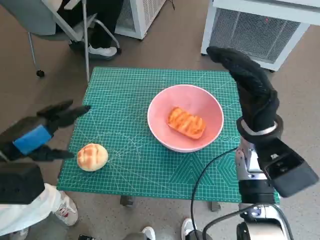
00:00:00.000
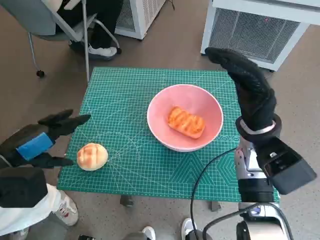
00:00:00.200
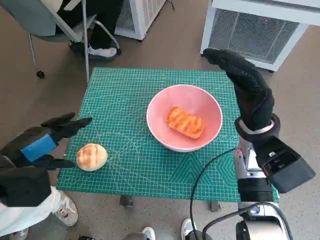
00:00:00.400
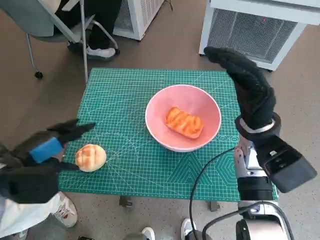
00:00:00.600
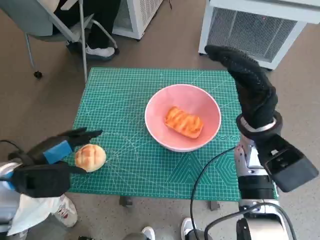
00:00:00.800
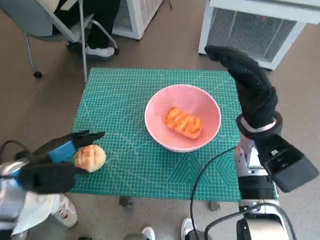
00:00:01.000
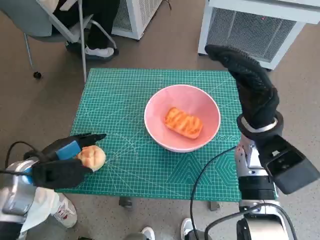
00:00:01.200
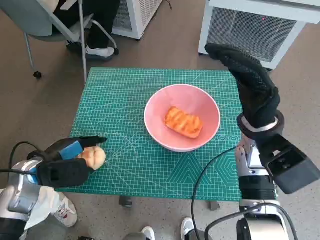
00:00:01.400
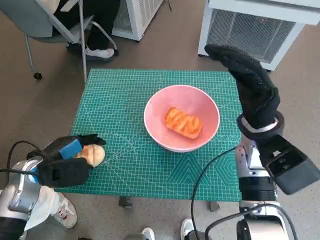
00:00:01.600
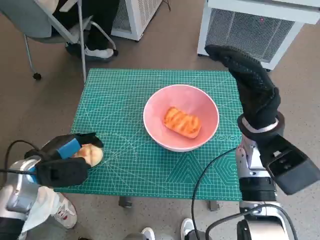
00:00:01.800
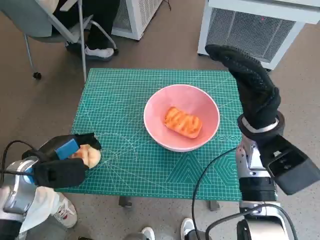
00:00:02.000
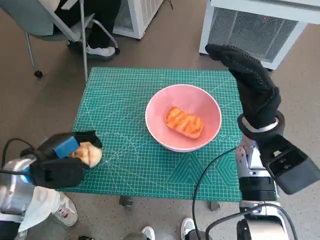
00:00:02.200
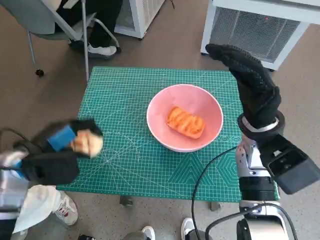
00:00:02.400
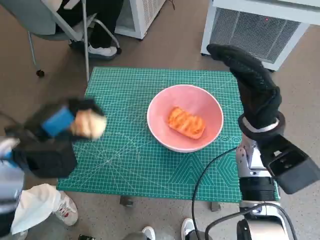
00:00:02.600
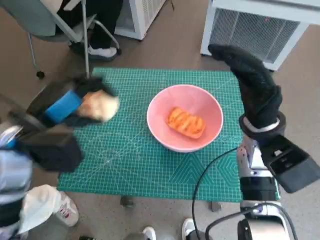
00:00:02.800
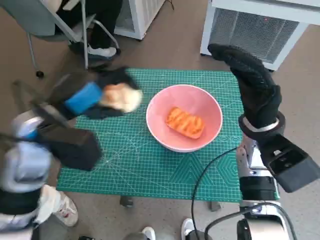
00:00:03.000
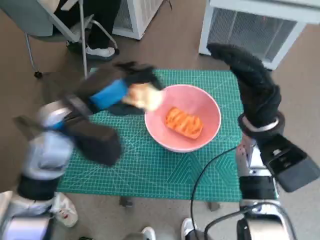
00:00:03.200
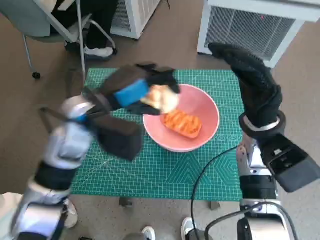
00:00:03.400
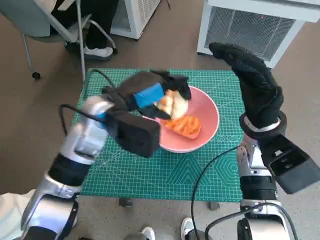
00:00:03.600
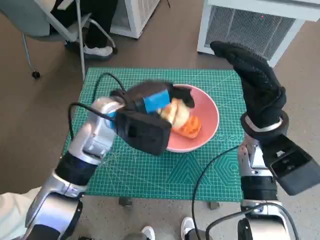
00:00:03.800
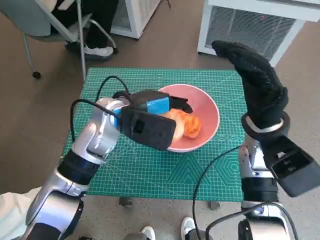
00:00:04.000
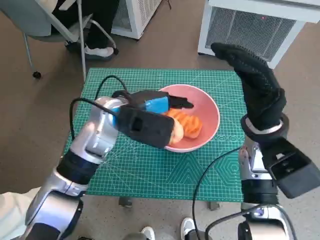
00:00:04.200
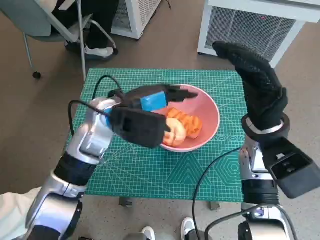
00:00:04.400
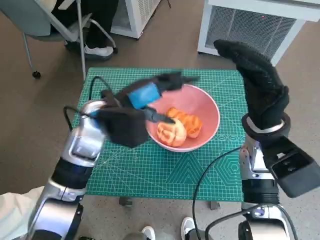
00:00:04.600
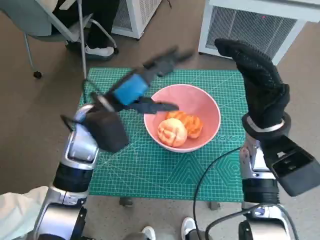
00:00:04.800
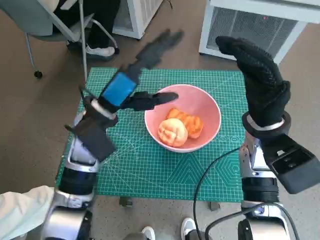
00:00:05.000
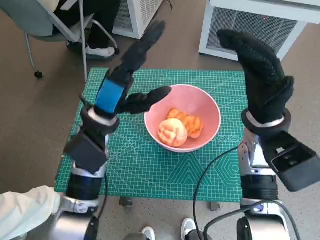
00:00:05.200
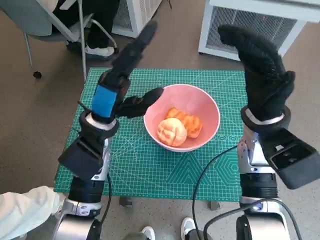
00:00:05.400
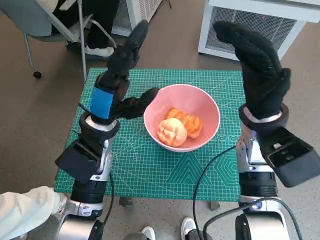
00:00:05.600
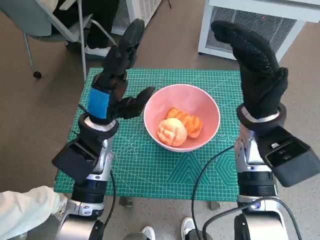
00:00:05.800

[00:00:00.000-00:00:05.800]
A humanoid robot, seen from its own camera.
Task of the whole recording: Push the bowl to the center of the table and put the bread into the bowl.
Step, 00:00:00.000 to 00:00:01.600: Grasp the round bread with left hand.
Step, 00:00:01.800 to 00:00:04.400: Place the round bread in pink bowl with left hand.
00:00:00.000 to 00:00:01.400: The left hand goes some 10 cm downward.
00:00:01.400 to 00:00:02.800: The left hand shifts some 10 cm upward.
00:00:02.800 to 00:00:04.400: The left hand shifts about 15 cm to the right and forward.
00:00:04.400 to 00:00:05.800: The left hand moves about 5 cm.

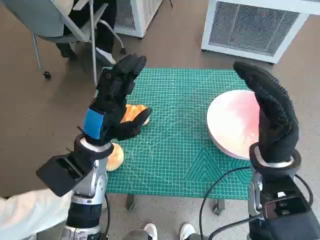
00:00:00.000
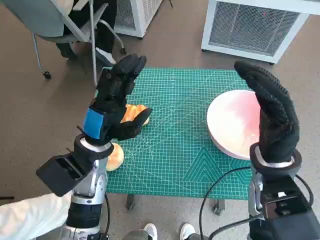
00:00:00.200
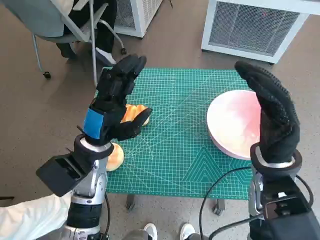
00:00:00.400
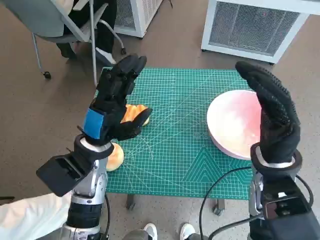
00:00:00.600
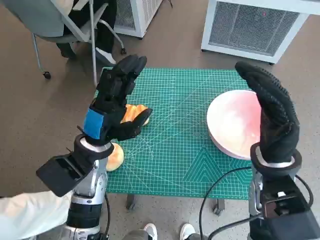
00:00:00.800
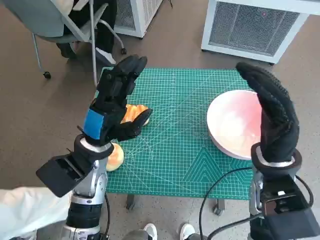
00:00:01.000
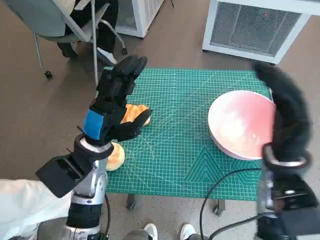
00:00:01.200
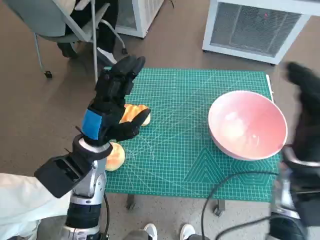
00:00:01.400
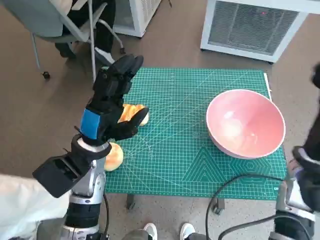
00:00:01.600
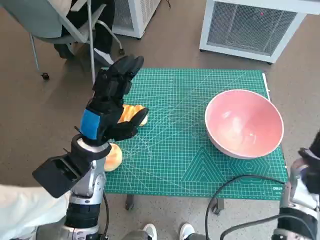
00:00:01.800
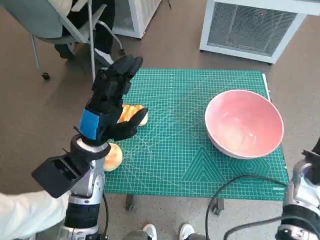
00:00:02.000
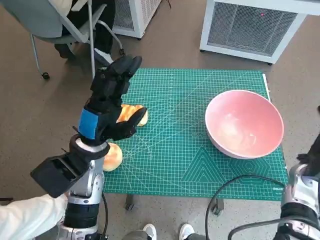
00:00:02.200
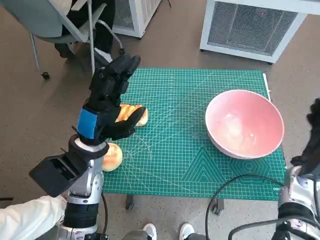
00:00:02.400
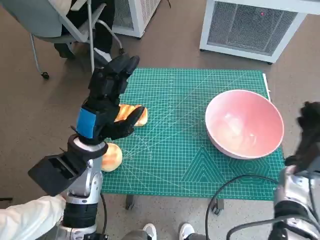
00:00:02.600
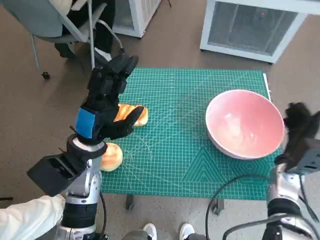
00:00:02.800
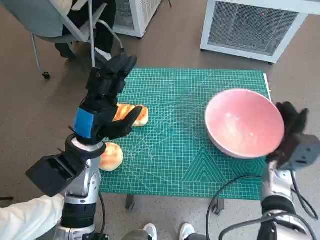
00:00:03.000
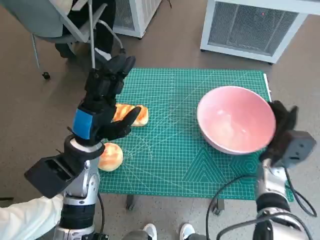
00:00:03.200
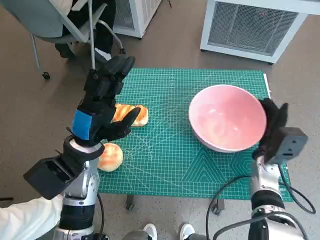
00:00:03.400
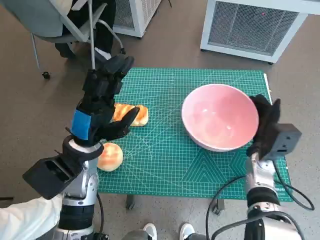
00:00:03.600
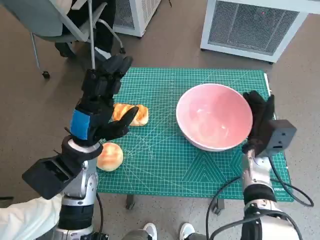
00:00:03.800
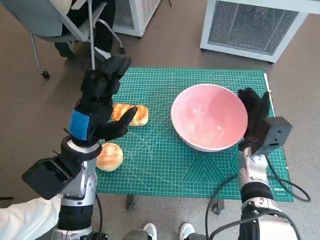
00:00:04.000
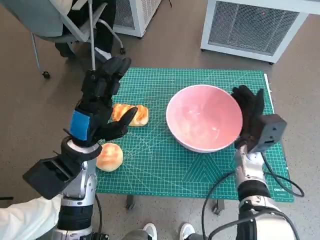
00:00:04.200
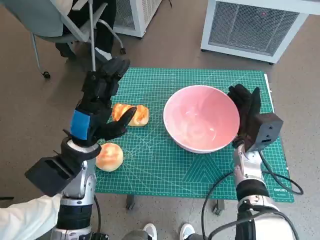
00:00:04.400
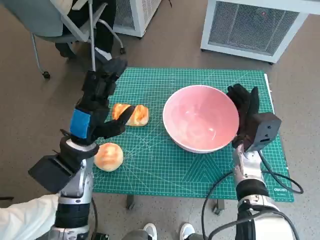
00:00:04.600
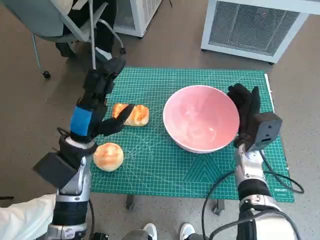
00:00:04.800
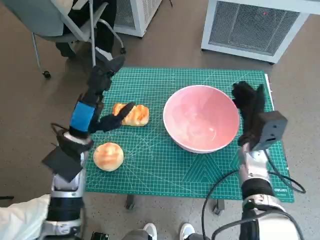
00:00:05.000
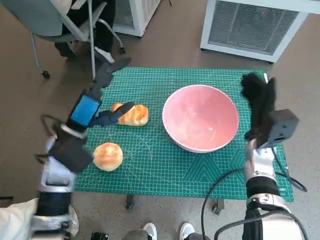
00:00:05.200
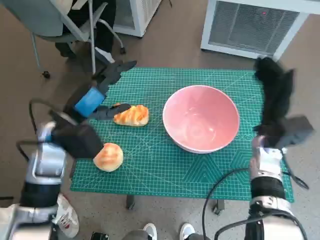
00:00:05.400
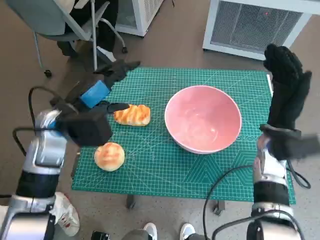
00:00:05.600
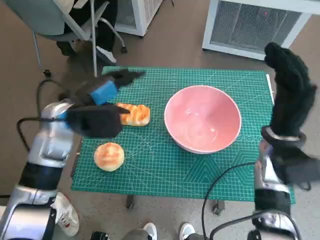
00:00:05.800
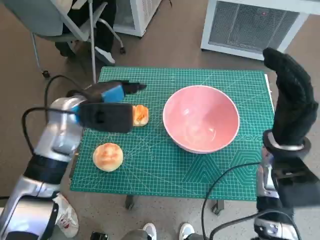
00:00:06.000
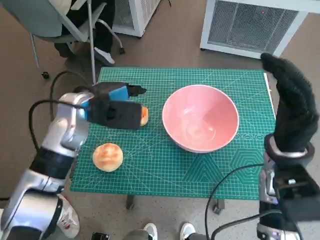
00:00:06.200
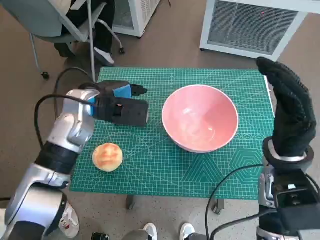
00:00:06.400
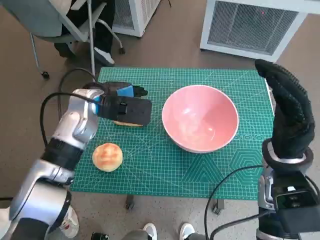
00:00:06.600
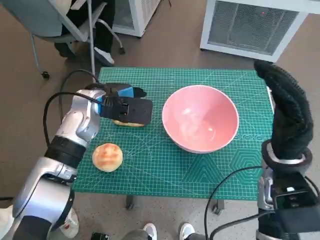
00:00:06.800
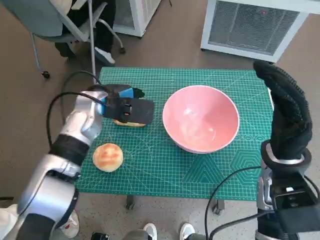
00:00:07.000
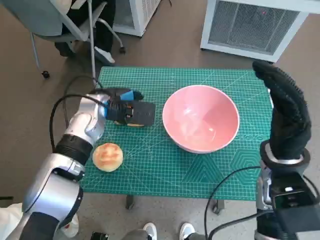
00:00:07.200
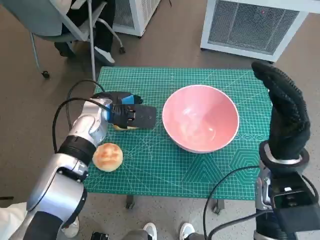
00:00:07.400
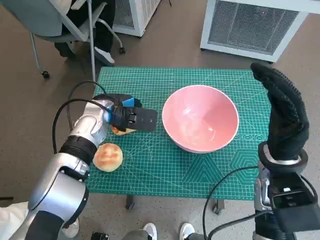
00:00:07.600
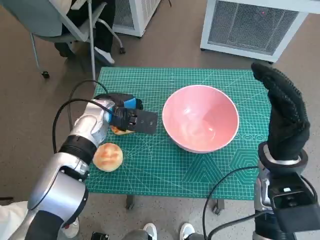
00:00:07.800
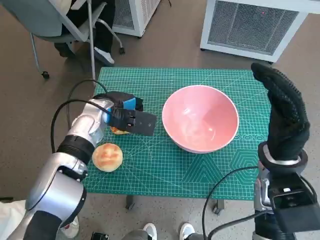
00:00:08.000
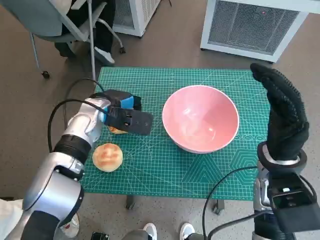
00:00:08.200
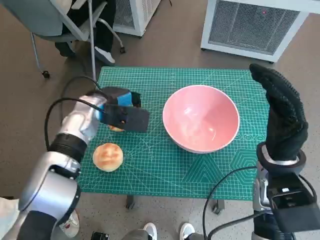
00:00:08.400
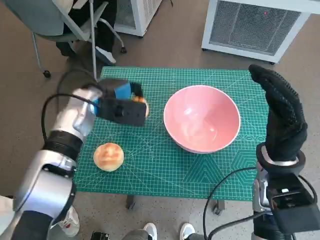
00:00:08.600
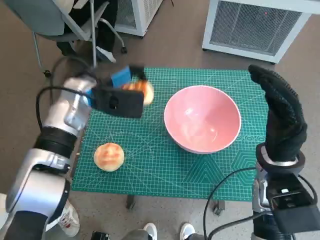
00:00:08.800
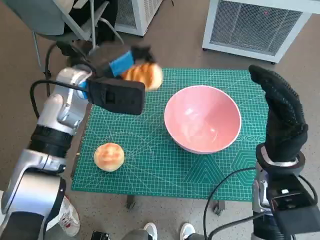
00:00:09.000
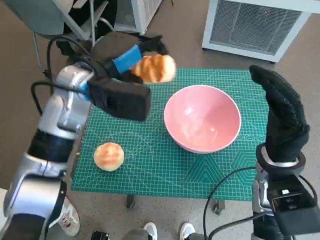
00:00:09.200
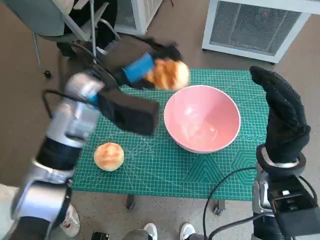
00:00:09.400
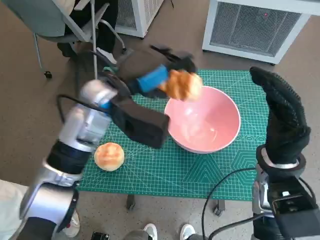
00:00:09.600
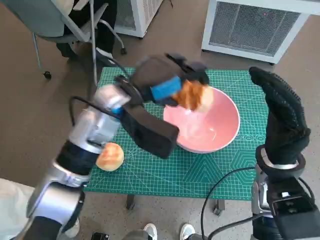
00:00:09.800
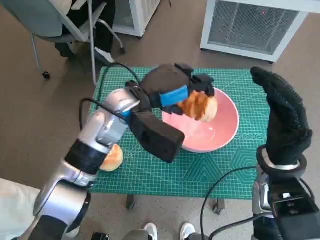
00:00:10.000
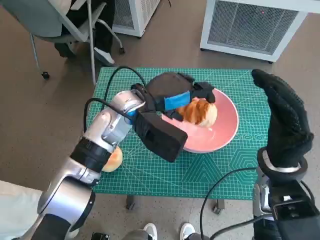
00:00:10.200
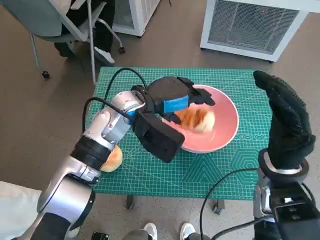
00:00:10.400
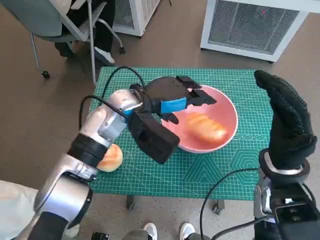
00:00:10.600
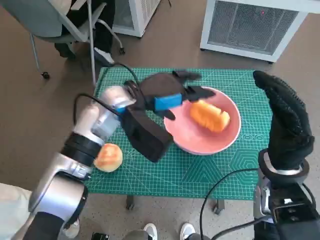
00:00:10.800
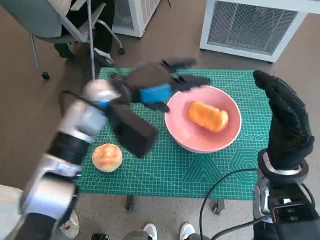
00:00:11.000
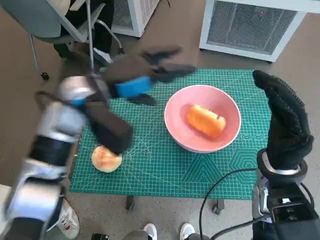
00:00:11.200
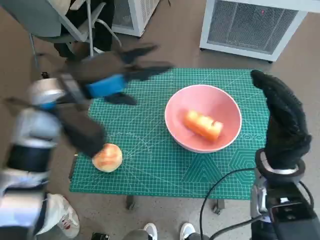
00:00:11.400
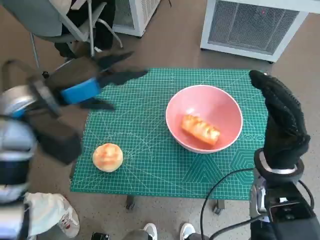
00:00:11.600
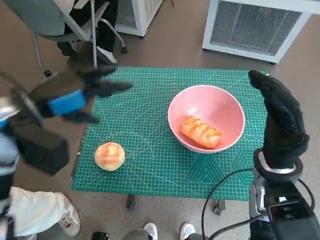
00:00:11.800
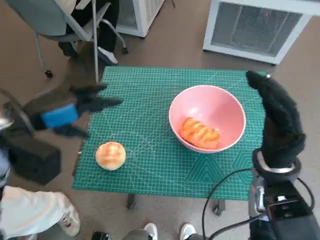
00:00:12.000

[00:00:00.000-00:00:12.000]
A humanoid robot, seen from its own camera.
Task of the whole recording: Push the bowl to the center of the table and put the bread into the bowl.
Step, 00:00:00.000 to 00:00:05.200: Move the pink bowl to the center of table with right hand.
Step, 00:00:05.400 to 00:00:07.800: Grasp the long bread with left hand.
Step, 00:00:08.000 to 00:00:10.600: Place the long bread in pink bowl with left hand.
00:00:01.600 to 00:00:03.000: The right hand heads downward, covering approximately 10 cm.
00:00:03.000 to 00:00:04.400: The right hand goes some 5 cm to the left.
00:00:04.400 to 00:00:06.000: The left hand shifts about 10 cm forward and upward; the right hand travels upward by roughly 10 cm.
00:00:06.000 to 00:00:07.600: The left hand heads downward, covering some 5 cm.
00:00:07.600 to 00:00:09.000: The left hand moves upward, about 10 cm.
00:00:09.000 to 00:00:10.400: The left hand heads to the right, covering about 10 cm.
00:00:10.400 to 00:00:12.000: The left hand heads to the left and backward, covering some 20 cm.

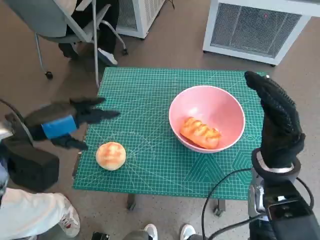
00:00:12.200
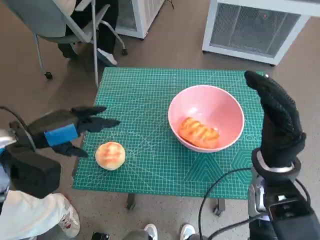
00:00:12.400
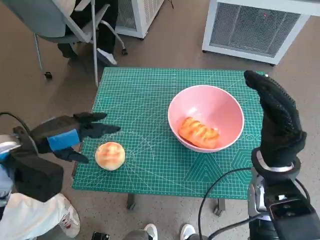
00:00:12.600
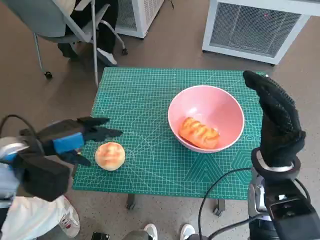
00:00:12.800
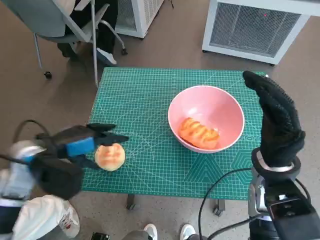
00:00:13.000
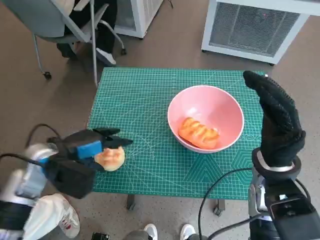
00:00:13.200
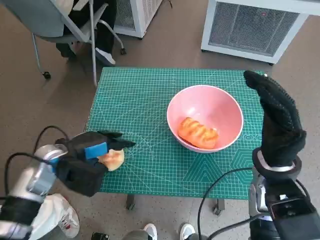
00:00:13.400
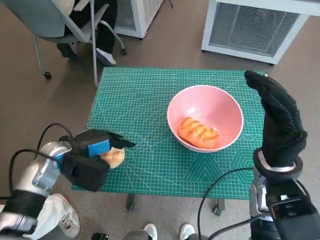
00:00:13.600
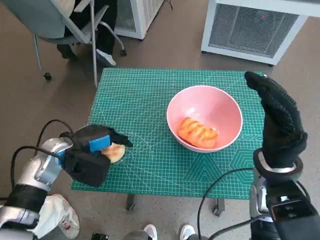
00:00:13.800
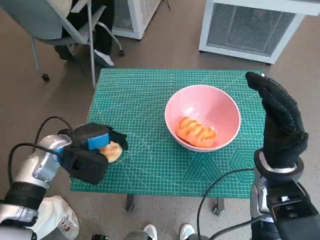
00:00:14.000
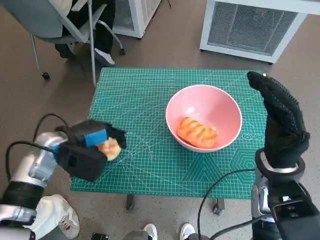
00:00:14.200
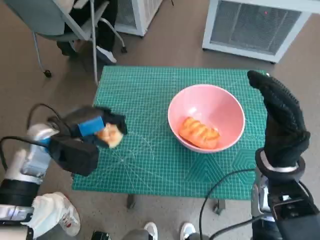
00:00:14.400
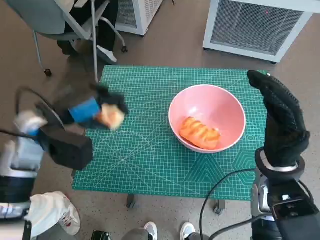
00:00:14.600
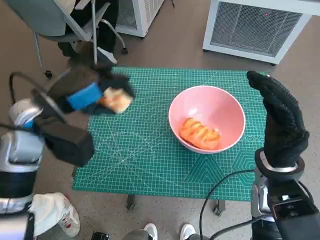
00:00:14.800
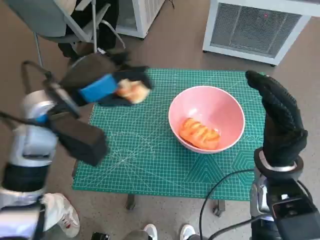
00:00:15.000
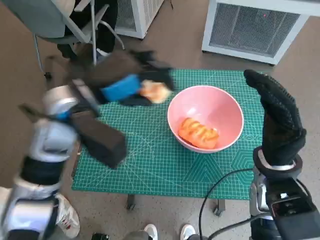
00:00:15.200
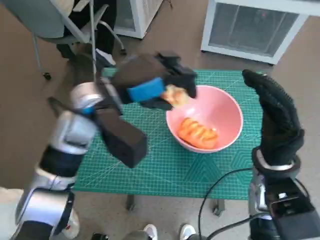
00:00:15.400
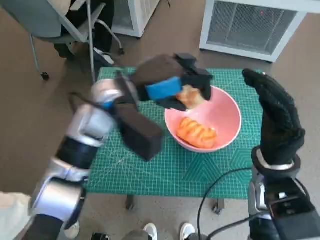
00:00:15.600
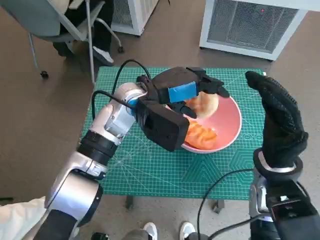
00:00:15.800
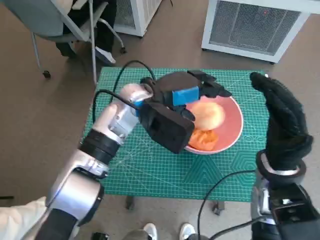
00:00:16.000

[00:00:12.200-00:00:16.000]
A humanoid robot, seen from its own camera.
Task of the whole recording: Push the bowl to the center of the table and put the bread into the bowl.
00:00:12.200 to 00:00:13.400: The left hand goes approximately 10 cm downward.
00:00:13.400 to 00:00:14.800: The left hand travels upward by some 10 cm.
00:00:14.800 to 00:00:16.000: The left hand shifts roughly 15 cm to the right.
